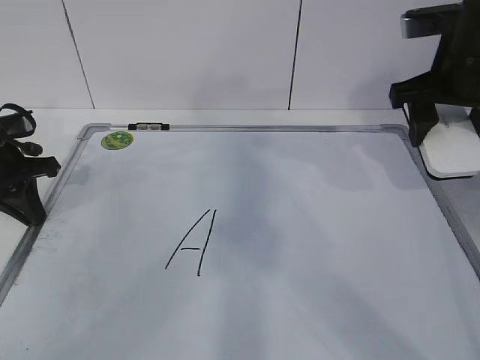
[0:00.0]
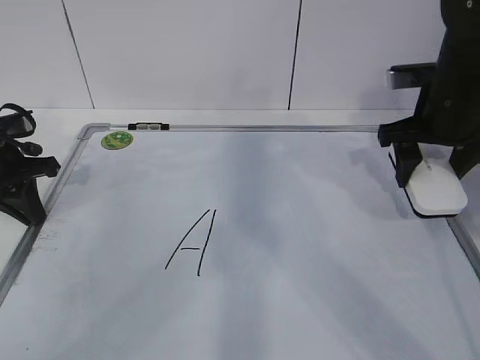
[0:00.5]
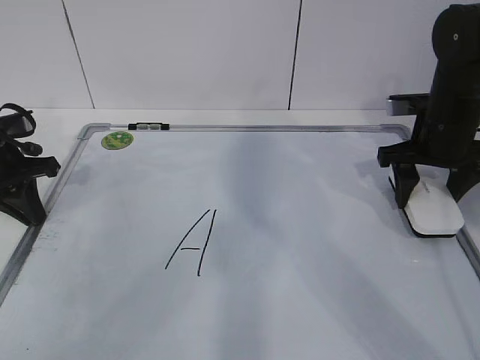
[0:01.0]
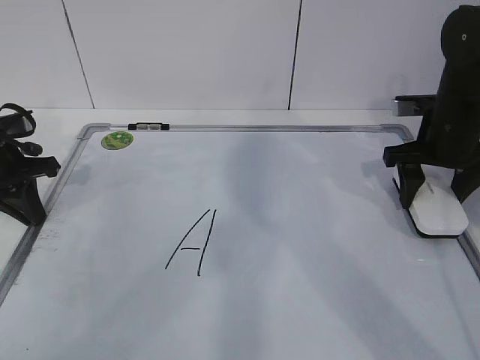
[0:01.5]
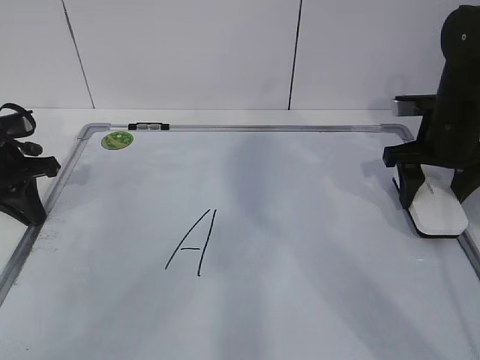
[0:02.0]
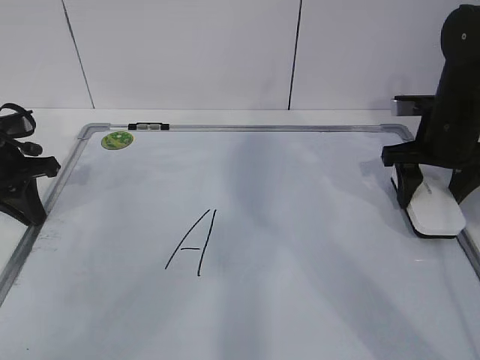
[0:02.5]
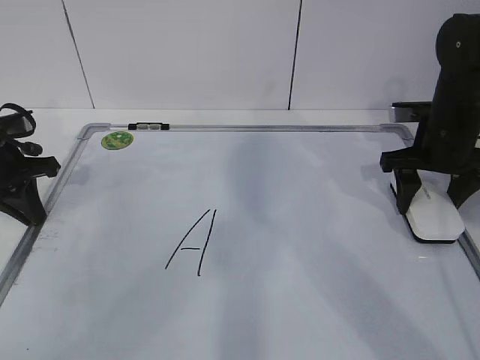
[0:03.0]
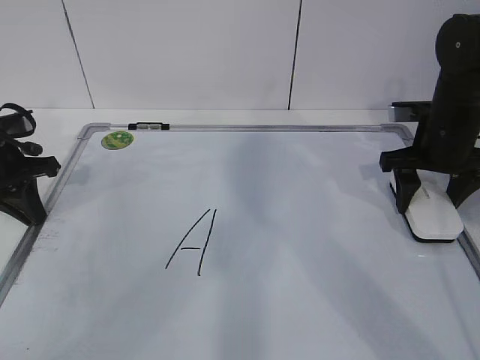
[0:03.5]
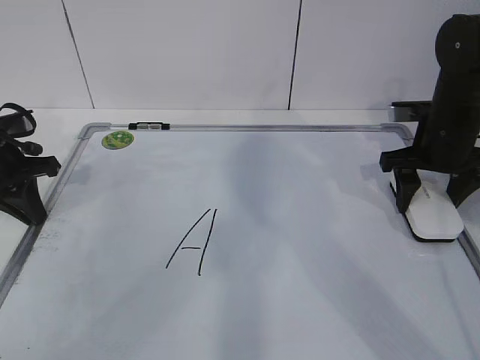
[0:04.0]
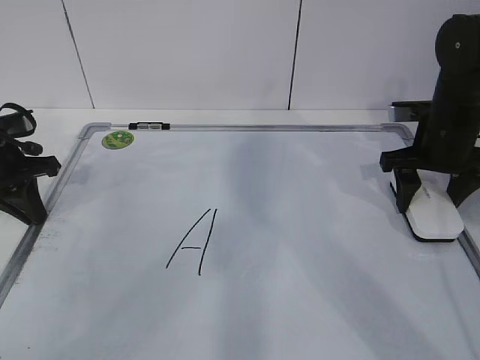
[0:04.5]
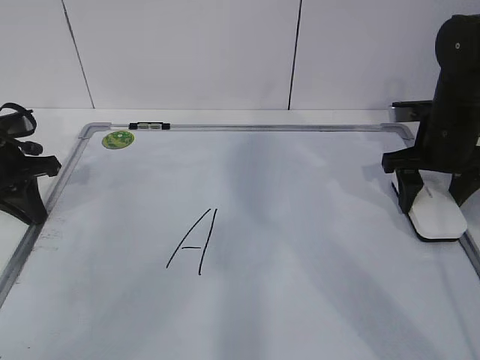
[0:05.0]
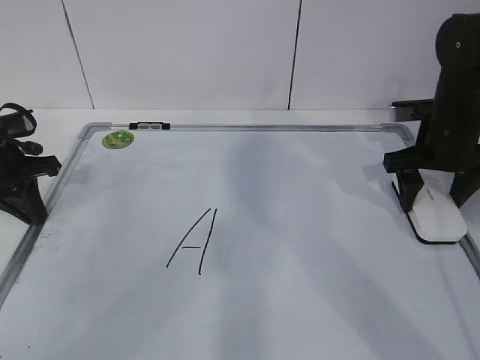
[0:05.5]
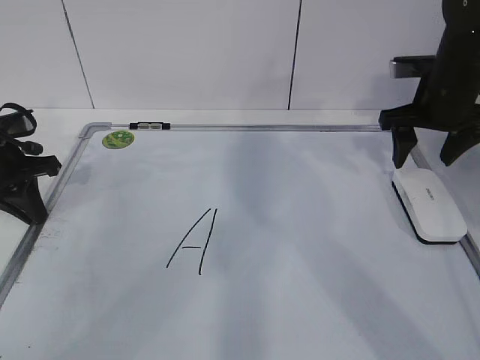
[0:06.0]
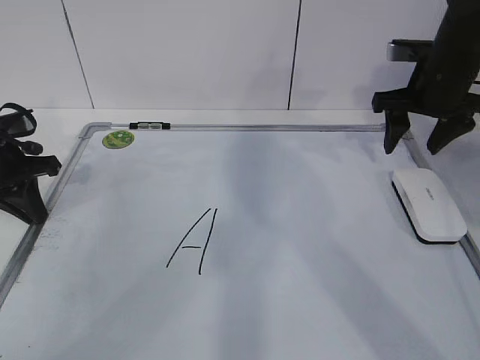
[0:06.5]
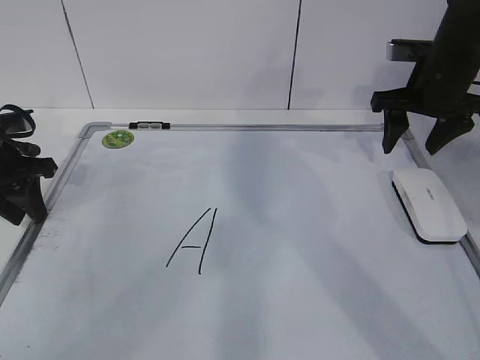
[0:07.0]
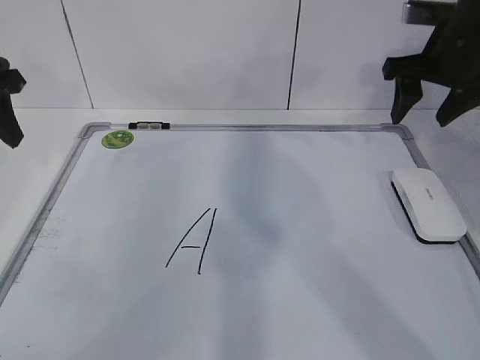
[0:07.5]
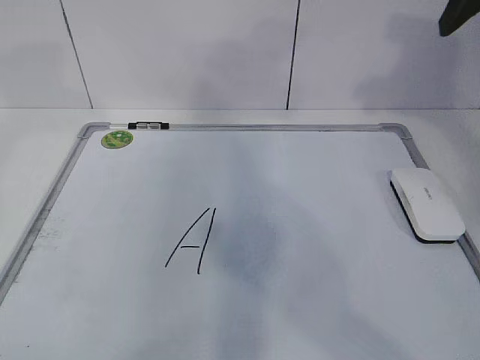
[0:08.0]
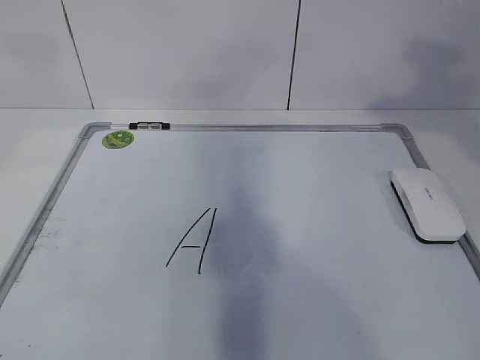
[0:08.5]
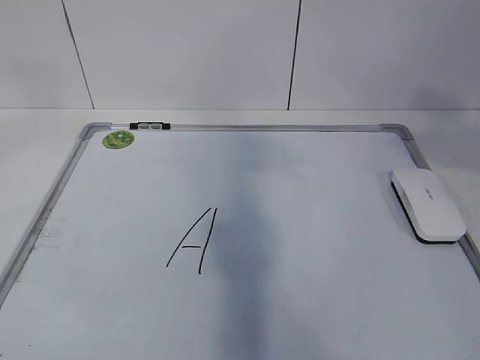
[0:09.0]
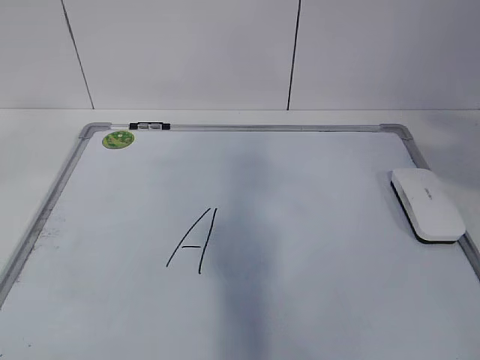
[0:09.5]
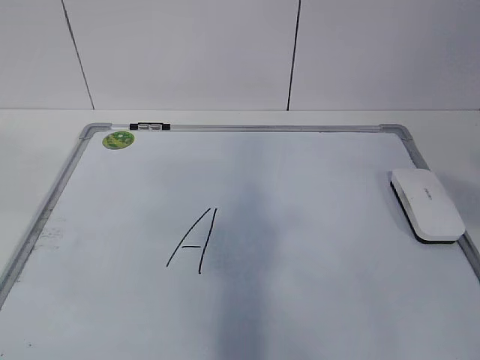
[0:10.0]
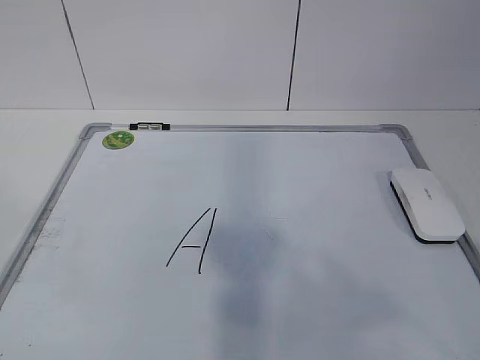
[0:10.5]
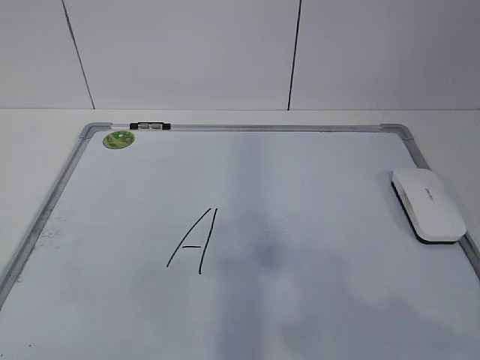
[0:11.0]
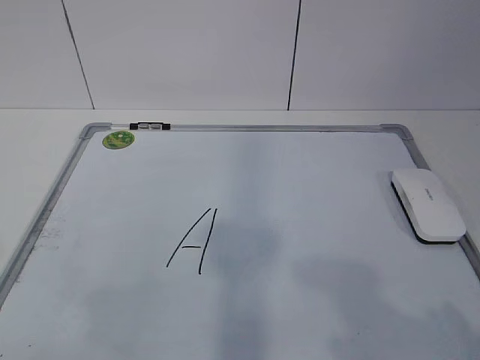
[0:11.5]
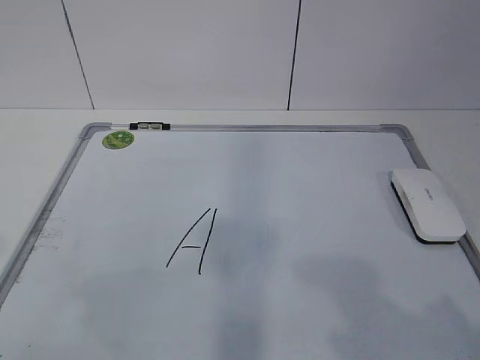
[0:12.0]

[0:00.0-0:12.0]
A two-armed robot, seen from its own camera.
Task of the whole recording: pick up the eraser on the blackboard and erase the letter "a".
0:00.0 to 0:02.0: The right gripper is displaced downward by approximately 10 cm.
0:02.0 to 0:04.0: Both grippers stay about where they are.
0:04.0 to 0:06.0: The right gripper shifts by about 5 cm.
0:06.0 to 0:08.0: The right gripper moves upward and backward, roughly 20 cm, while the left gripper travels upward by roughly 25 cm, and opens its fingers.
0:08.0 to 0:10.0: Both grippers travel together backward, some 35 cm.
0:10.0 to 0:12.0: The two grippers go roughly 20 cm downward.

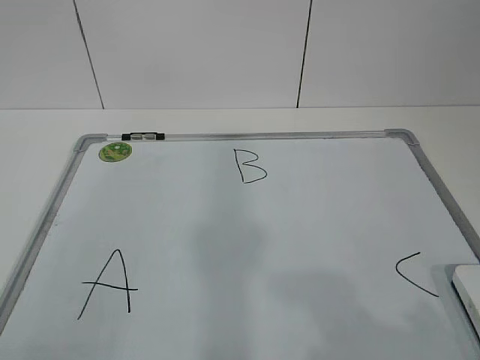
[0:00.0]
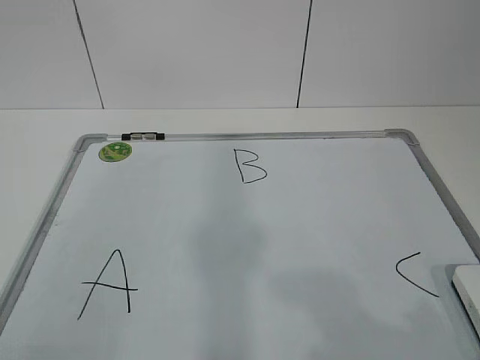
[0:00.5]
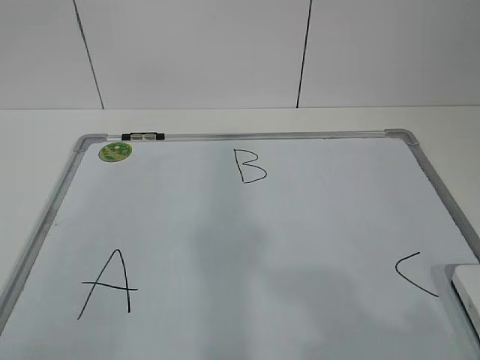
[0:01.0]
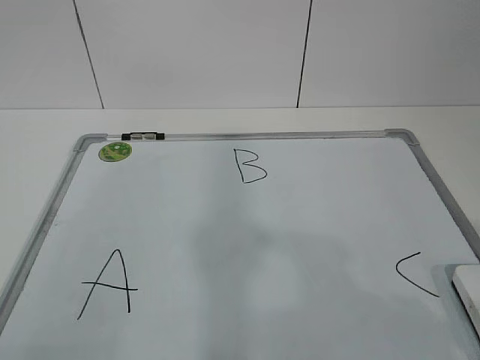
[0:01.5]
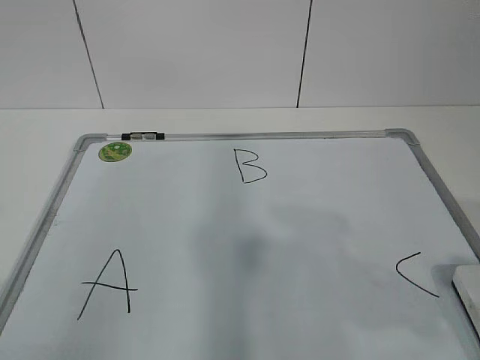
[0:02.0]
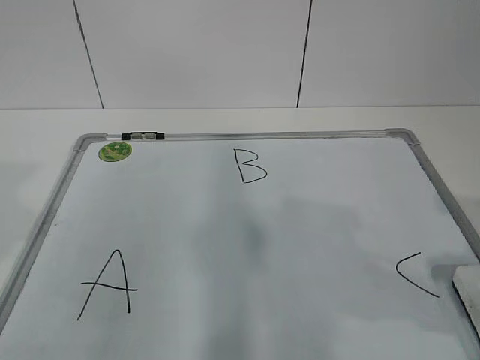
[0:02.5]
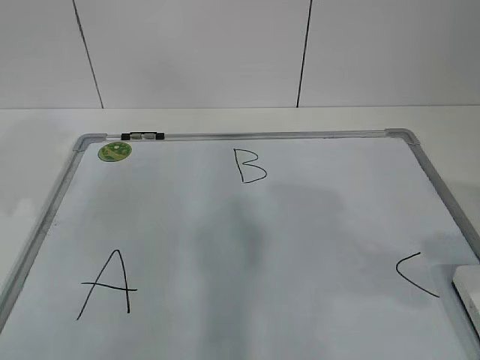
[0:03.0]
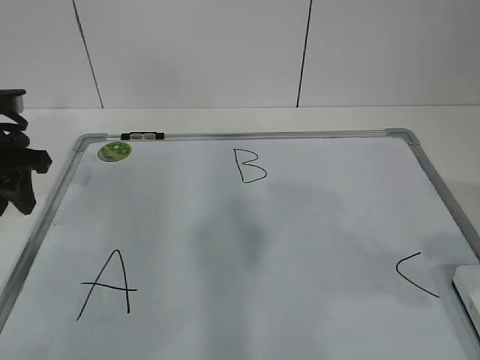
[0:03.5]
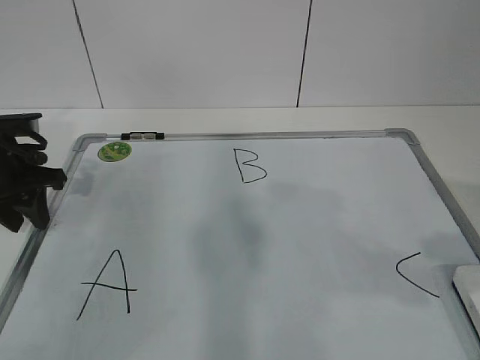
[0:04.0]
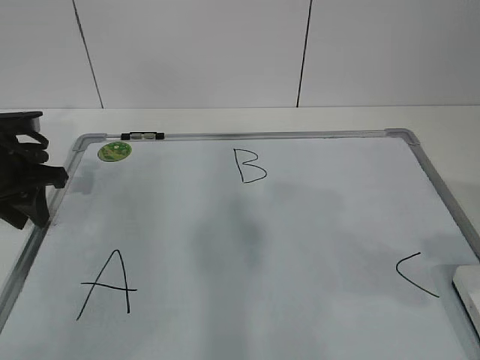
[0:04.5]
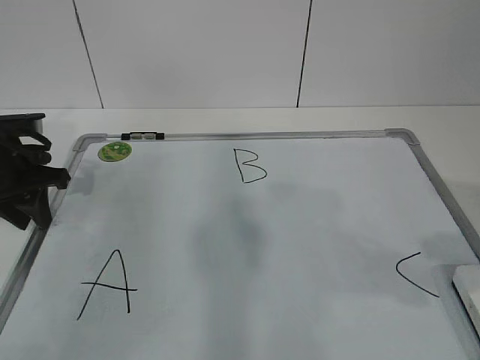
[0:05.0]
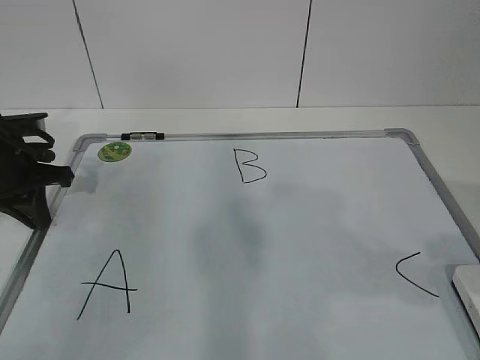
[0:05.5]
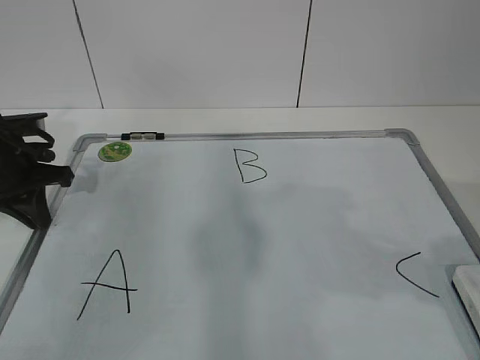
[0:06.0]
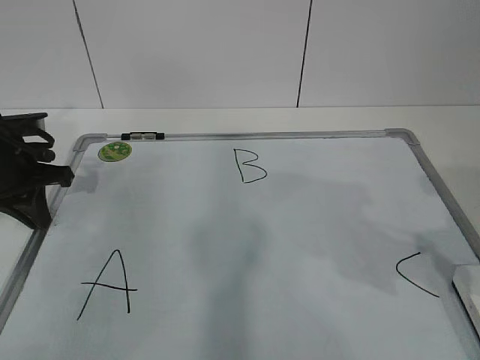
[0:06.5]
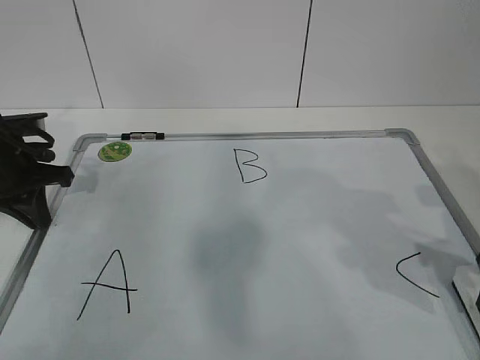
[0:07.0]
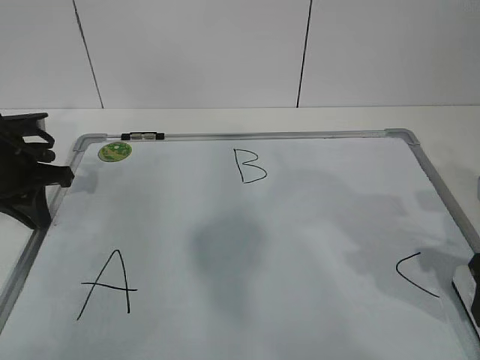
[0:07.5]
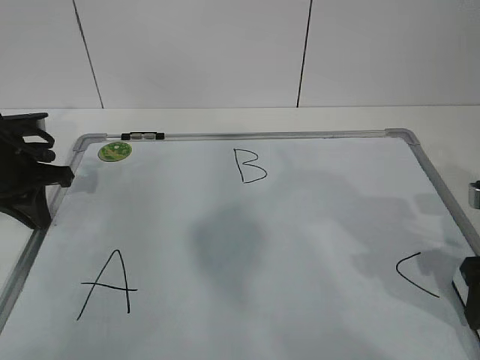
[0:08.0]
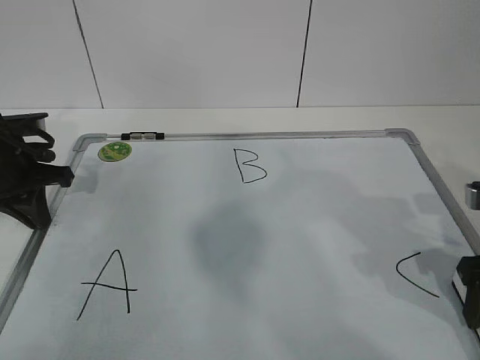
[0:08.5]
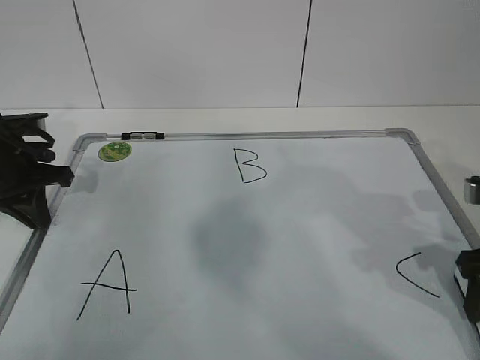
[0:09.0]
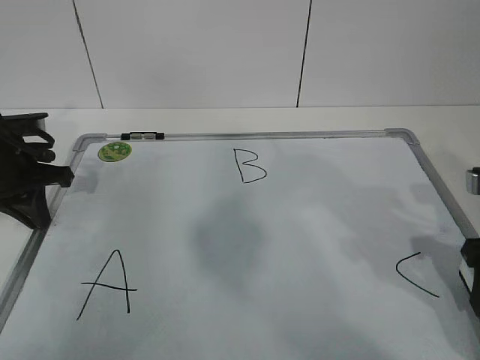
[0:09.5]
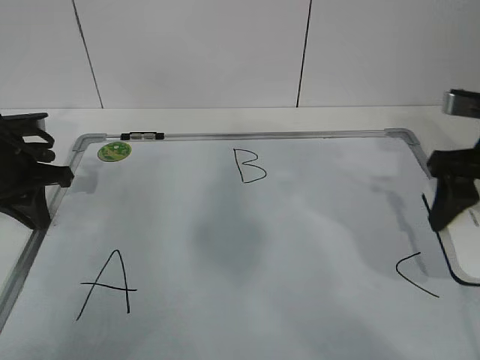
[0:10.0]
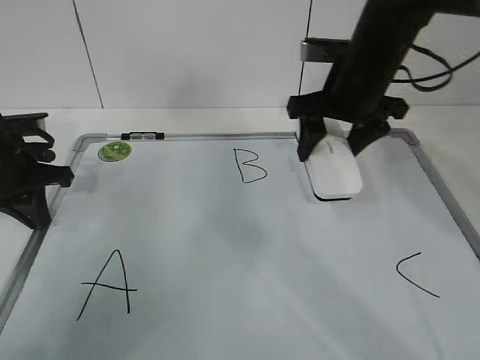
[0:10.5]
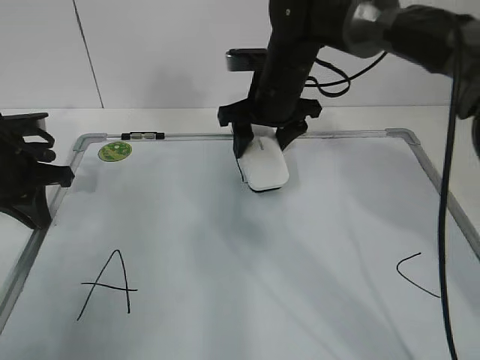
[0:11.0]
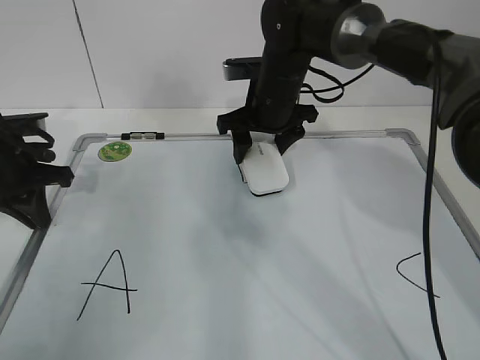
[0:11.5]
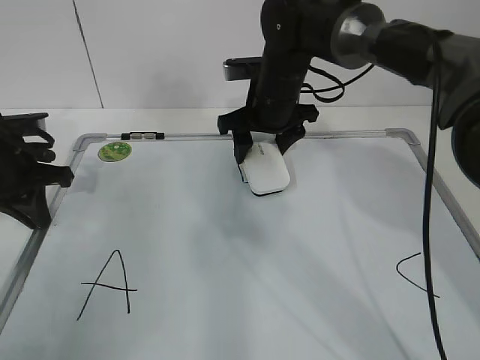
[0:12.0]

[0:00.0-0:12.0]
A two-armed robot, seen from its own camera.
Task of the whole recording: pick up the eraser on the blackboard and erase the letter "B".
Step, 0:00.0 to 0:04.5: Hold the drawing board steady with your left hand.
0:02.0 to 0:04.0: The left gripper travels forward and downward by some 35 cm.
0:04.0 to 0:06.0: The left gripper closes up.
0:06.0 to 0:08.0: The right gripper is displaced downward and forward by roughly 15 cm.
0:08.0 to 0:10.0: The right gripper travels upward and forward by about 10 cm, and closes up.
0:10.0 to 0:12.0: The right gripper shifts approximately 25 cm to the left and forward.

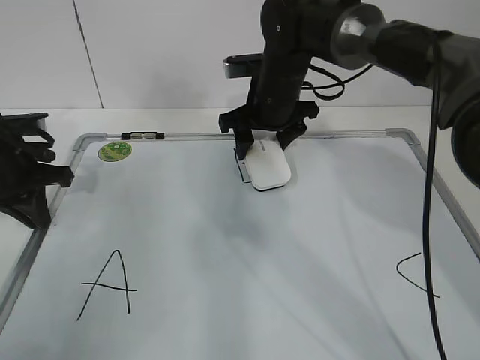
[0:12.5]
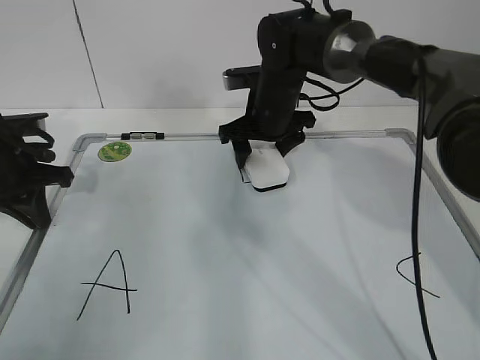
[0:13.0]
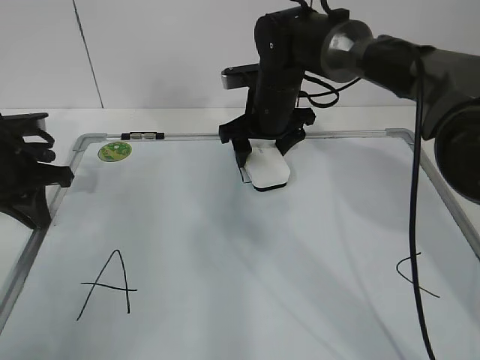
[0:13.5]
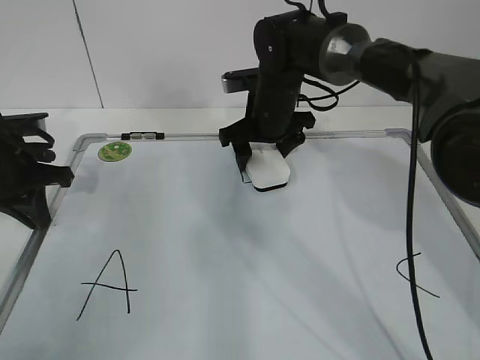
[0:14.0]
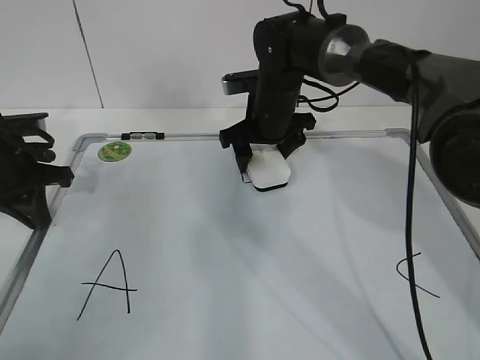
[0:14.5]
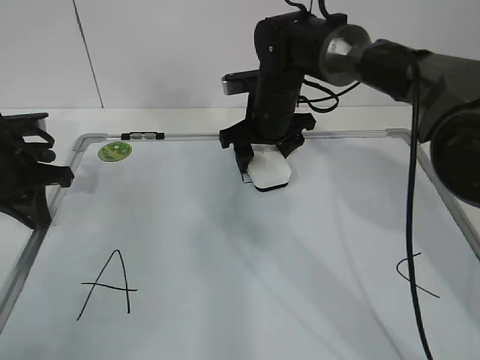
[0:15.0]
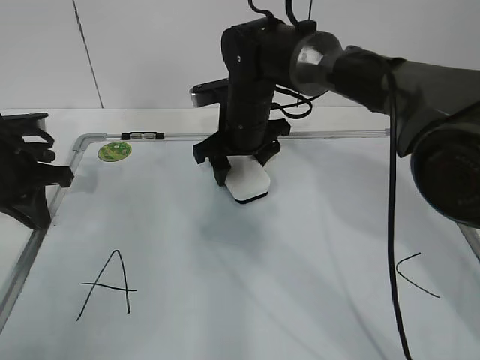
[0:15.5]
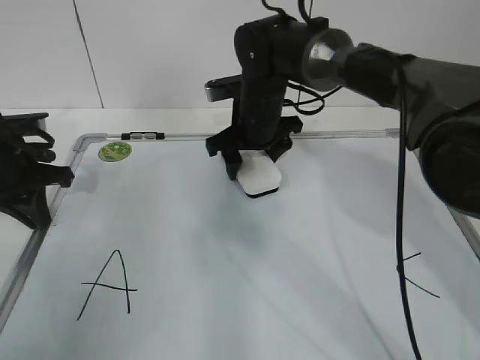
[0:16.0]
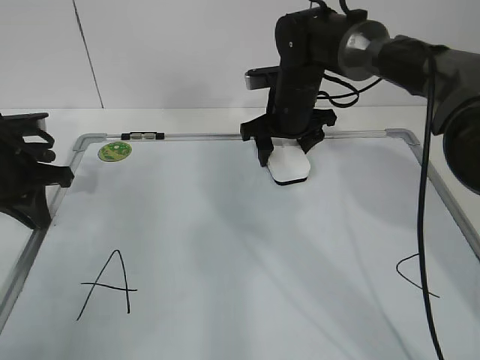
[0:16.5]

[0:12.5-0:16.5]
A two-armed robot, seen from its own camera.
Task of the whole recording: pick up the eraser on the blackboard and erase the letter "B".
Step, 0:12.5 to 0:15.5: Erase the letter B with your right hand.
0:12.5 to 0:14.5: The right gripper opens up.
0:14.5 to 0:16.5: The right gripper closes its fingers.
